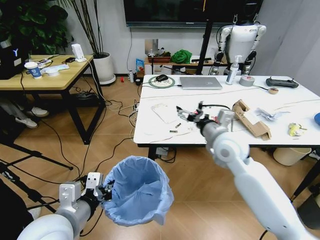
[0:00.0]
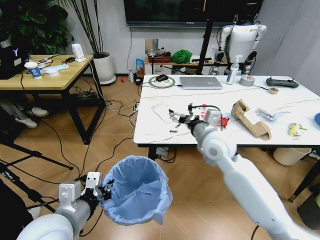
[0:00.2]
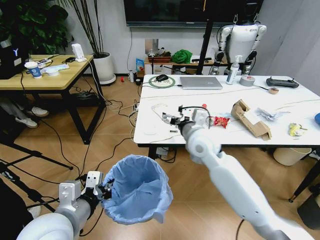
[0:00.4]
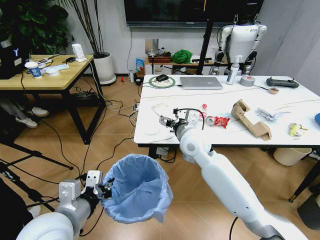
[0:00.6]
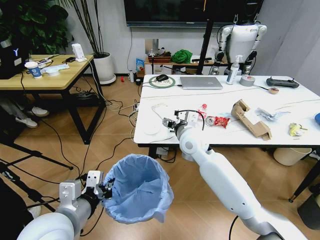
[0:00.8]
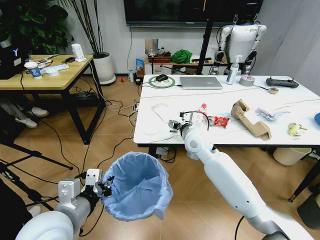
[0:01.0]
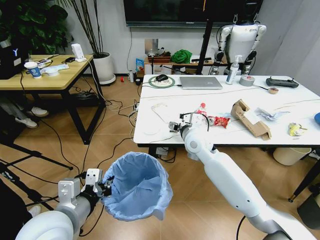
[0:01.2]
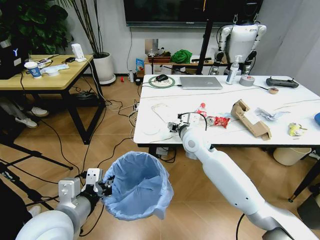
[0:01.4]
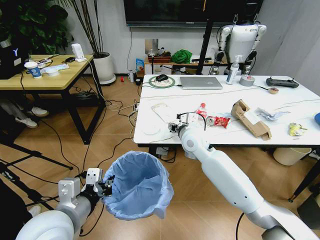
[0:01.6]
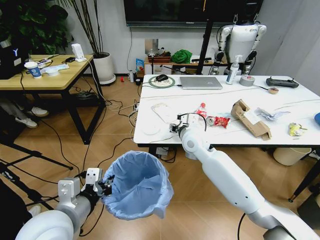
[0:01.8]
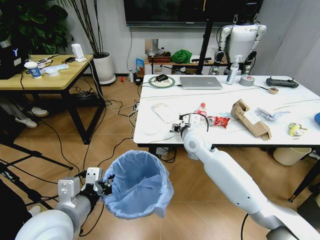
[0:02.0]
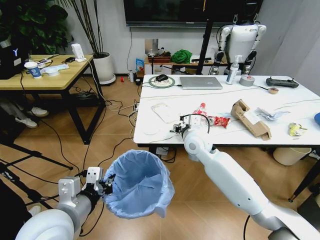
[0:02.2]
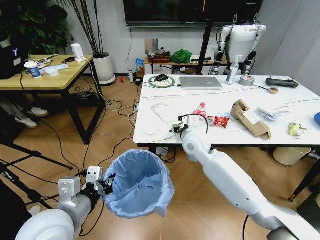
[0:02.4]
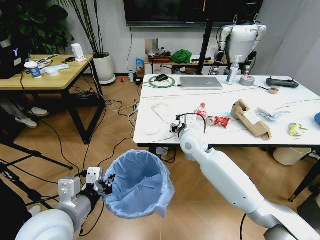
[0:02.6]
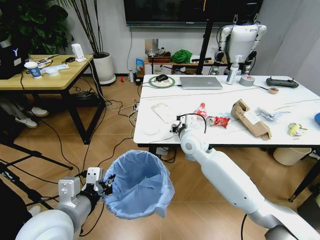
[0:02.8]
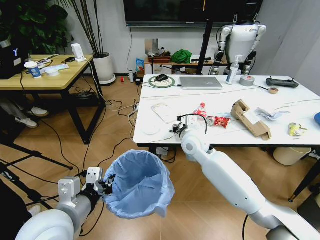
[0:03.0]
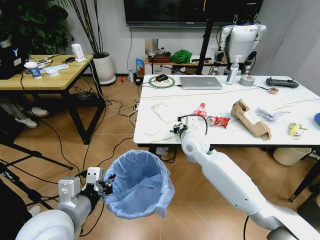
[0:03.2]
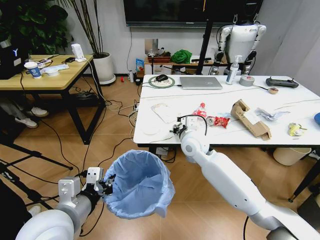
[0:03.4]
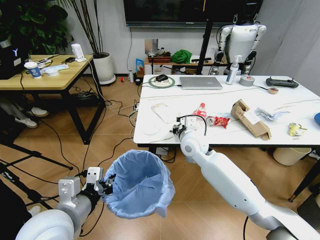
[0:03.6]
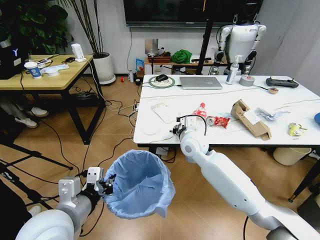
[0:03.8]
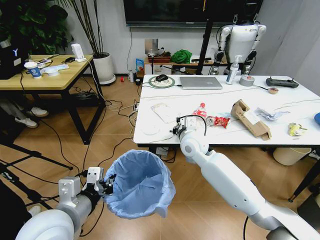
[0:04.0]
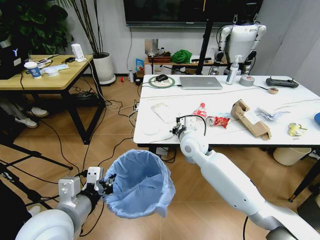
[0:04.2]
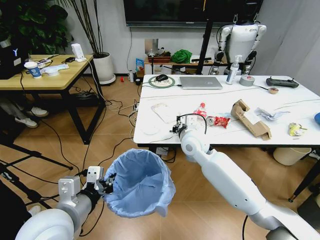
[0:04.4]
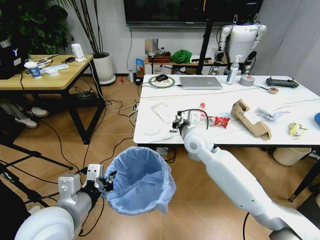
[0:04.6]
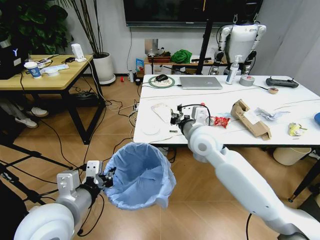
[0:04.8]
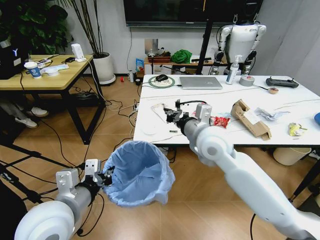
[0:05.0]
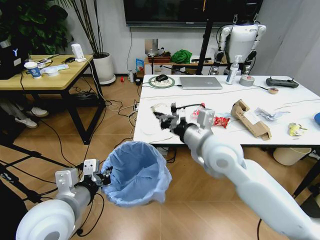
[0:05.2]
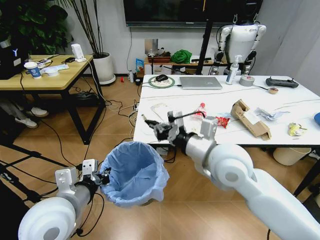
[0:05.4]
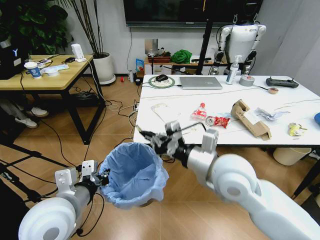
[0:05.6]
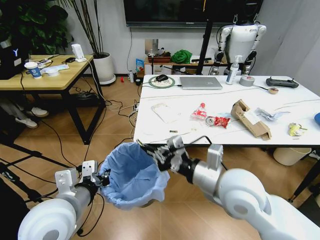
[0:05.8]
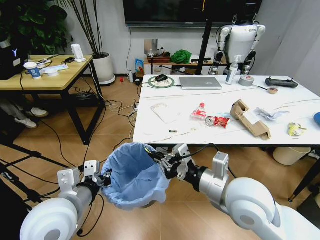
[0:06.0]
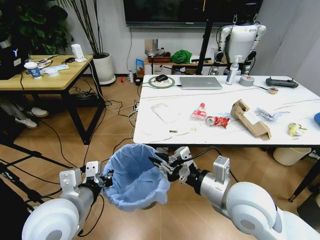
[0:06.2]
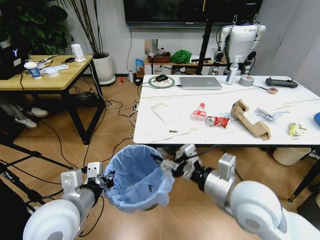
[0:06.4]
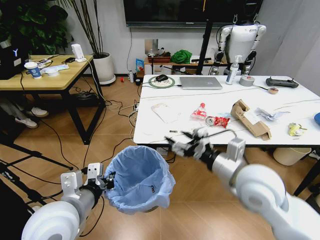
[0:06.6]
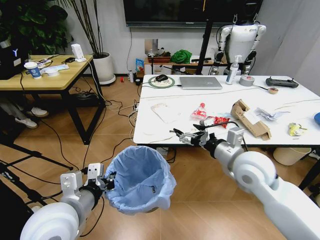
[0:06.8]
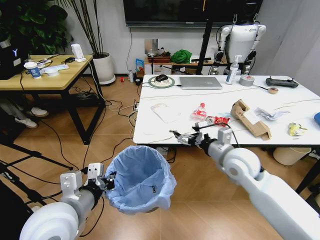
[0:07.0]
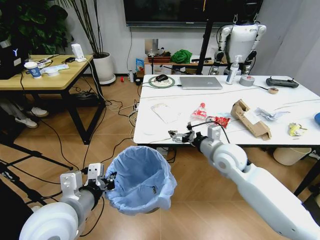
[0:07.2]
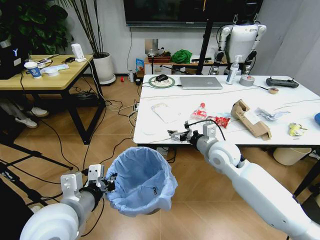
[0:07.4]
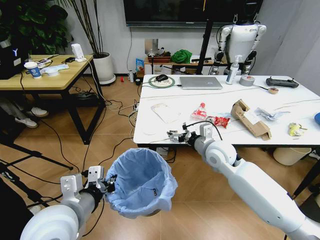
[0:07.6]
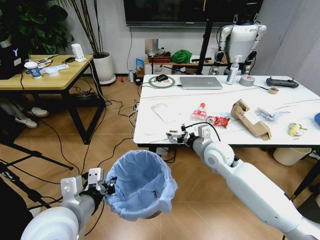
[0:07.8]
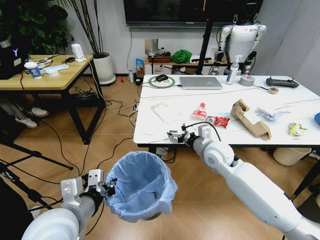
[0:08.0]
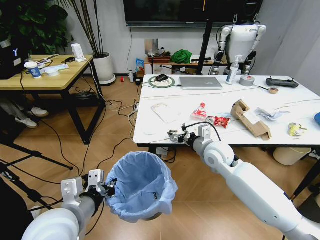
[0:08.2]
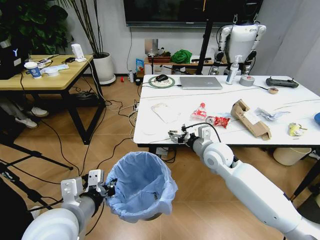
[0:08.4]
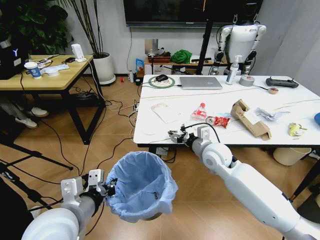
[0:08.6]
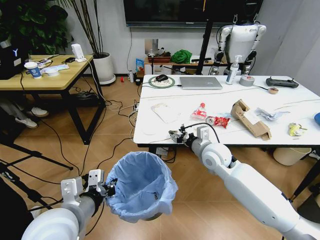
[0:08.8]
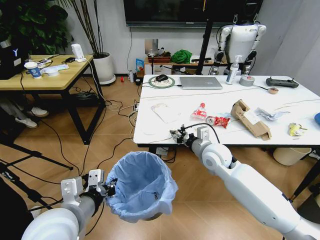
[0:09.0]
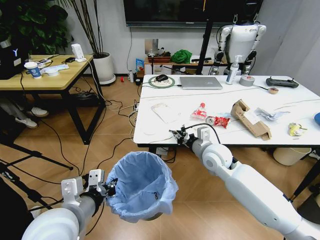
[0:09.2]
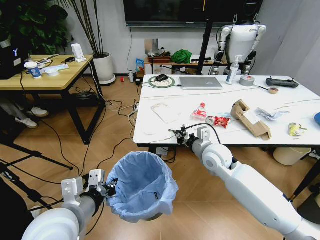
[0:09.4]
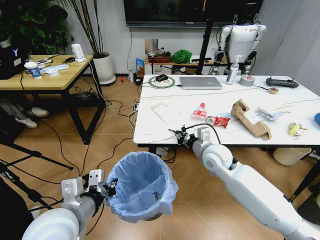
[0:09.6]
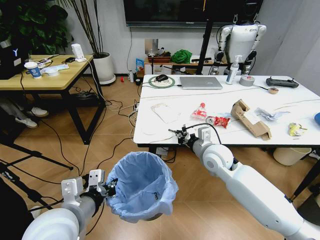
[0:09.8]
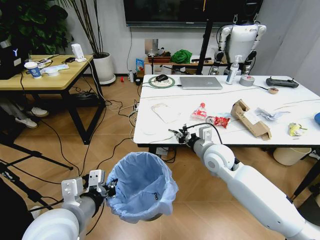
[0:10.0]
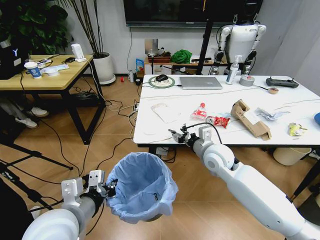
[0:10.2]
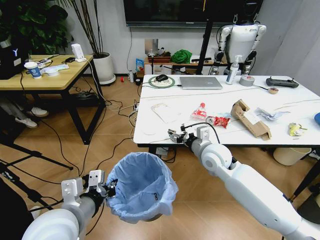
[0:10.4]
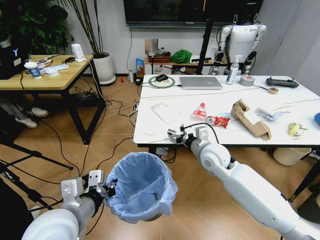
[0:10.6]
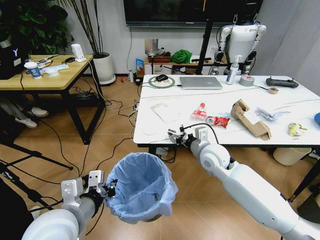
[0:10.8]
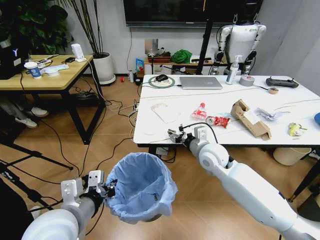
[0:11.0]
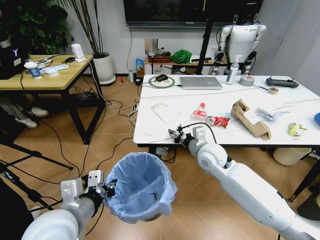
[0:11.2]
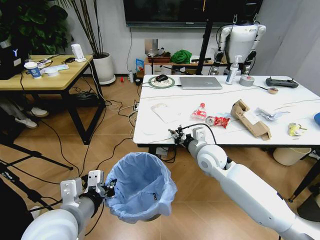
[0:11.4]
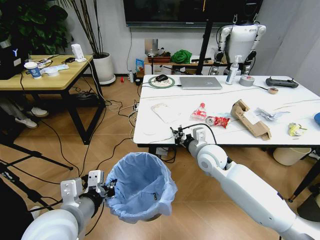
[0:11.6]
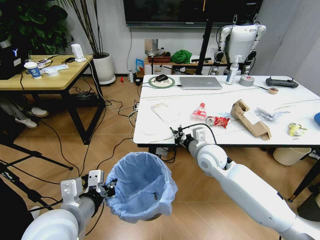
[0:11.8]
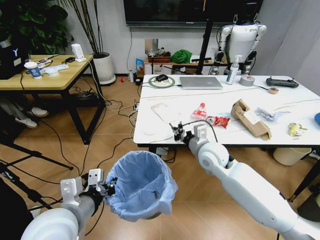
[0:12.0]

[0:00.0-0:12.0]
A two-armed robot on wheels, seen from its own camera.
Task of the whole recording: Pick up the trash bin and place the trash from the table into it.
0:00.0 to 0:01.6: The right gripper travels to the left and forward by some 10 cm, and closes up.
0:01.6 to 0:03.0: The grippers move only a little.
0:03.0 to 0:04.4: The right gripper closes up.
0:04.4 to 0:06.0: The right gripper travels backward by some 20 cm.
0:06.0 to 0:07.6: The right gripper travels forward by roughly 20 cm, and opens up.
0:07.6 to 0:09.0: The right gripper closes.
0:09.0 to 0:10.4: The right gripper opens its fingers.
0:10.4 to 0:12.0: The right gripper closes up.

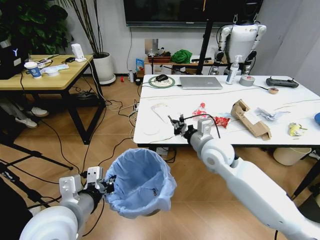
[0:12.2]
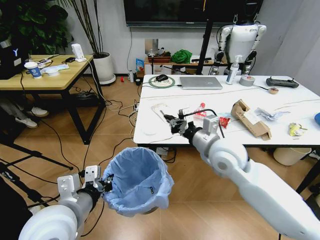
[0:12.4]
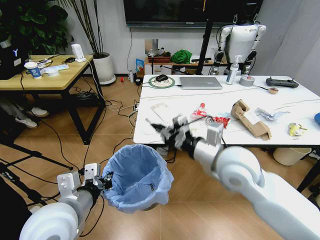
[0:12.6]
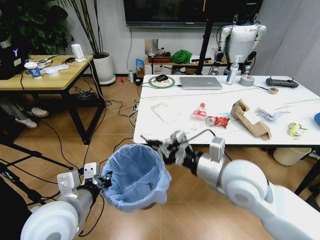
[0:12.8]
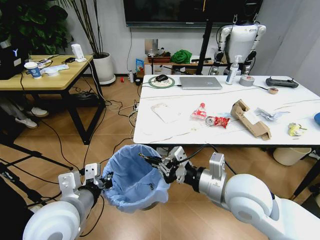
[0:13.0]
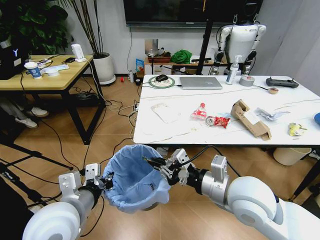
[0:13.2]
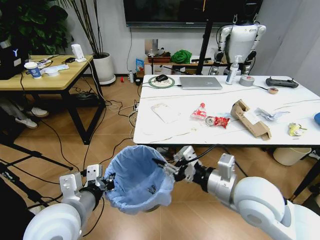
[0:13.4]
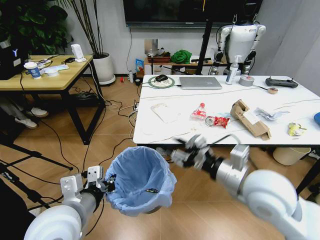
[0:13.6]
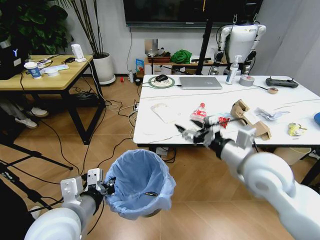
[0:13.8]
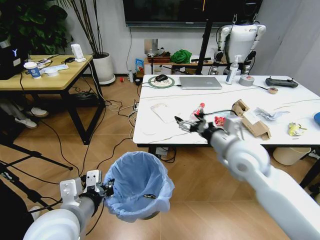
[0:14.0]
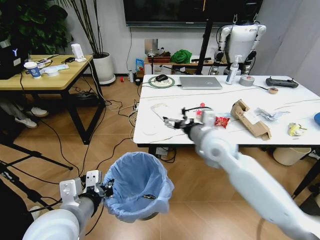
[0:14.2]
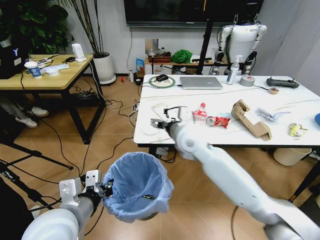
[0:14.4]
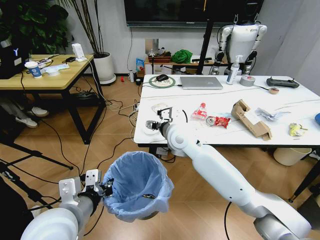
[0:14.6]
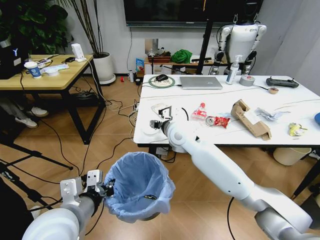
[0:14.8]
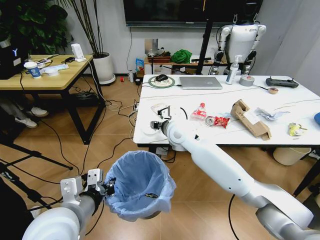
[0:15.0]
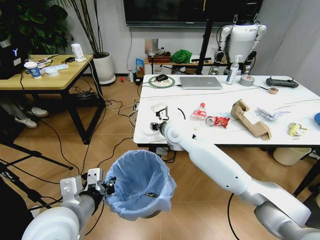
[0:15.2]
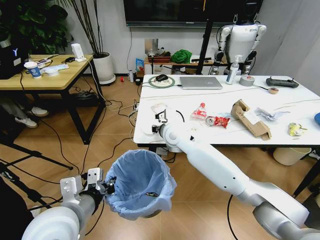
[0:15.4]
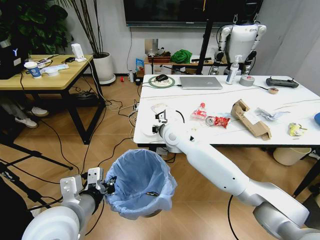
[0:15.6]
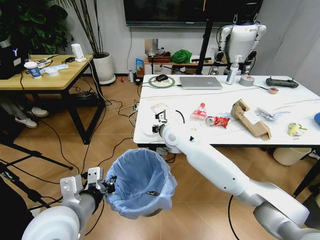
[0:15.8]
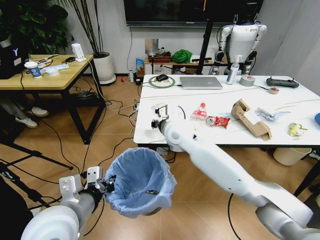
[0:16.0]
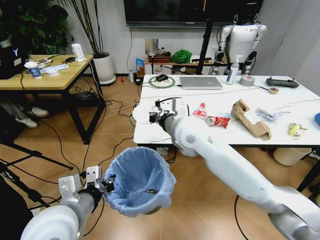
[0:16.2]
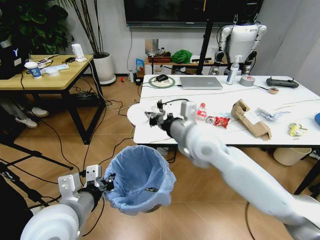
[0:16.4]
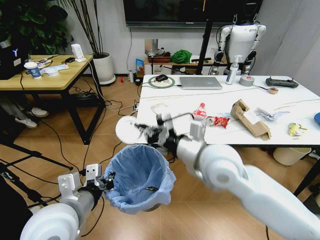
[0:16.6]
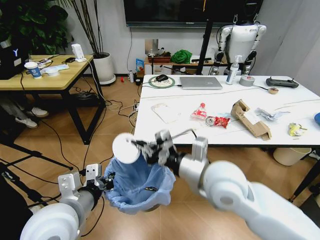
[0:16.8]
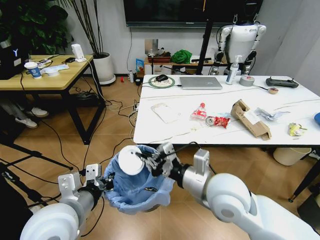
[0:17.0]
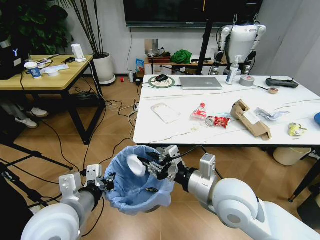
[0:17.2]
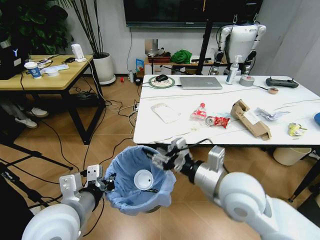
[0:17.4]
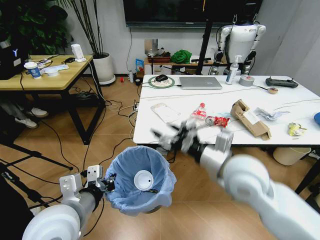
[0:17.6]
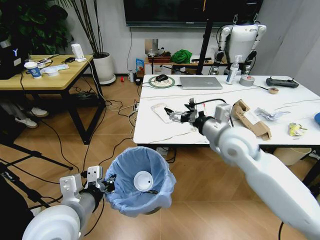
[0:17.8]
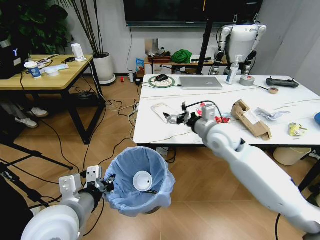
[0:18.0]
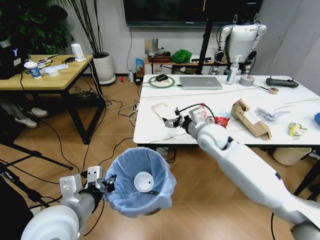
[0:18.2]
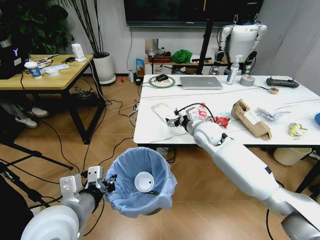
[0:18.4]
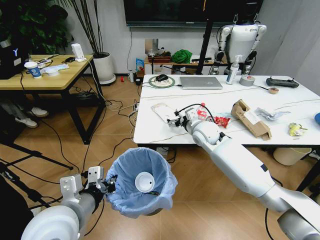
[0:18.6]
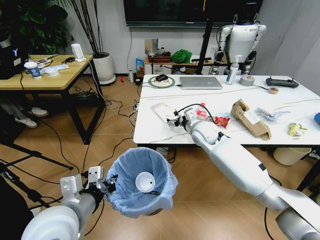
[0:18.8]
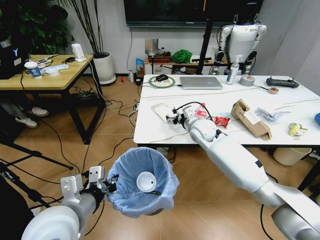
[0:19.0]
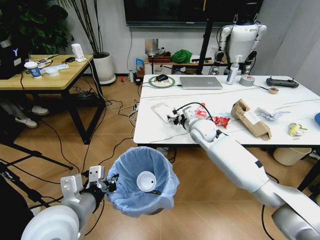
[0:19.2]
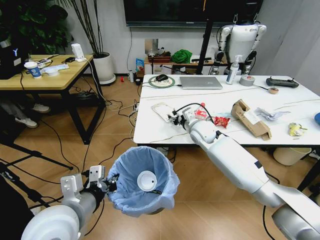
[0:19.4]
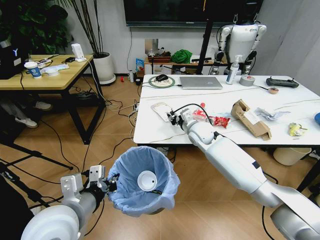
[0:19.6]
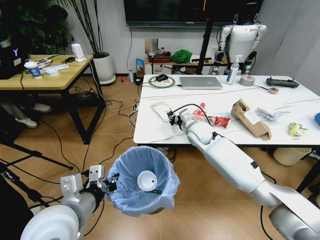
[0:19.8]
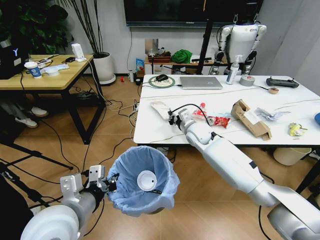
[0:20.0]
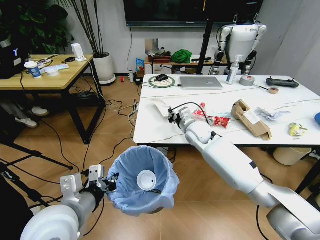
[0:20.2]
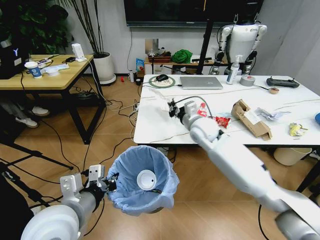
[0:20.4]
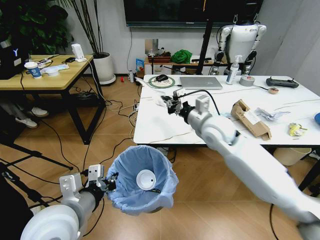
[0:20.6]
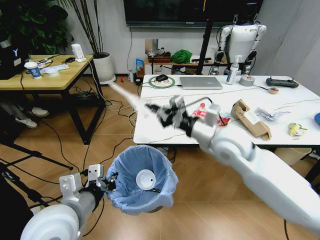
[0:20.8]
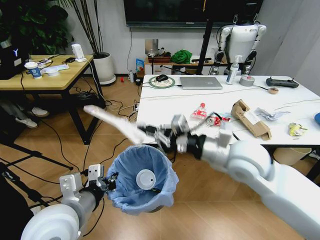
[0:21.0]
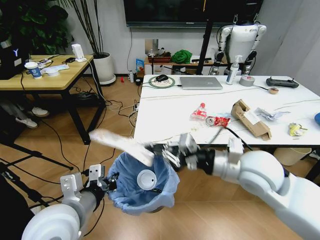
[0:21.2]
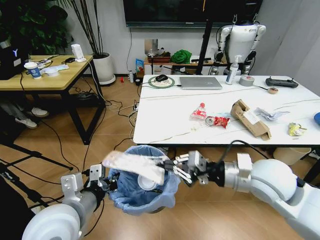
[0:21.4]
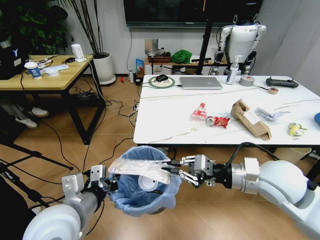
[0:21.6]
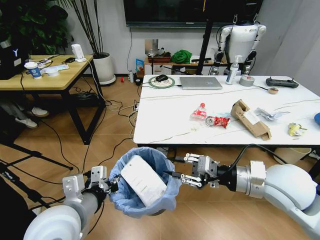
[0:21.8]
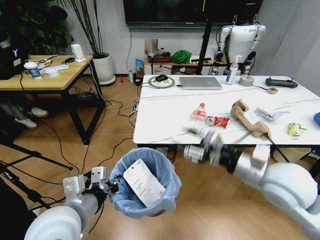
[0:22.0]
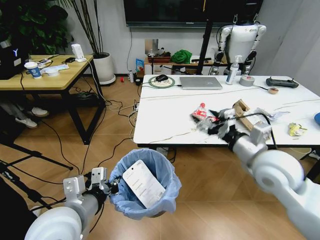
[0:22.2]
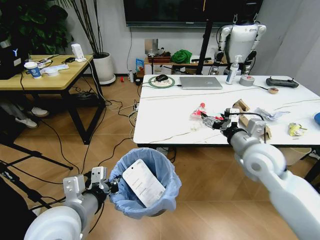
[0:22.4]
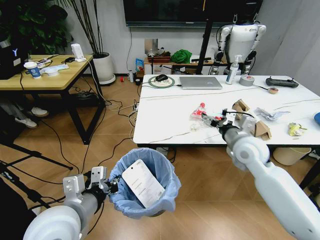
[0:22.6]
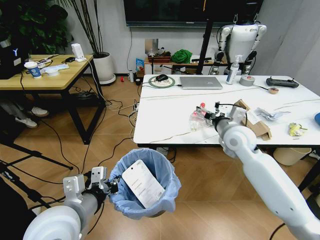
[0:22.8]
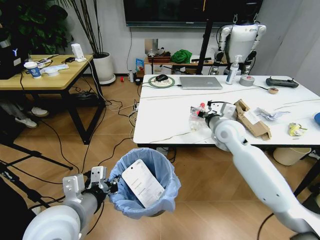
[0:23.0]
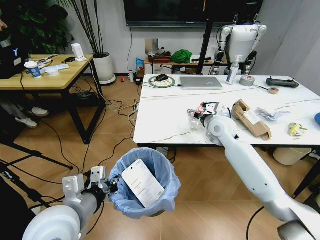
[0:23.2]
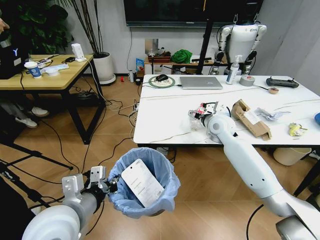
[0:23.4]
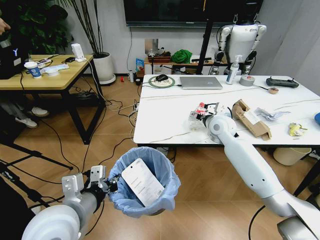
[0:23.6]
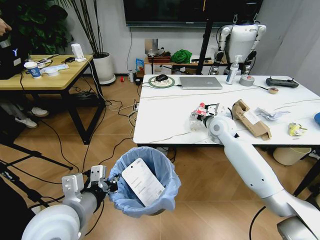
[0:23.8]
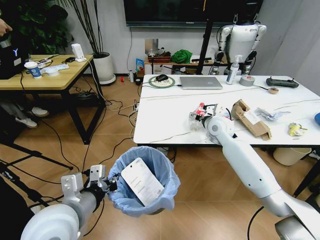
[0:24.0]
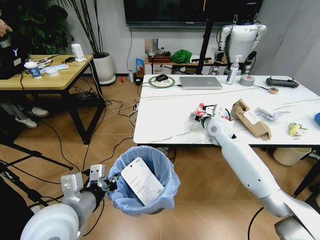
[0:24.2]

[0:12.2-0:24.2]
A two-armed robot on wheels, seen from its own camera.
Task of the whole recording: Pick up the trash bin and place the trash from the table into it.
0:12.2 to 0:13.8: The right gripper travels backward and to the right by roughly 10 cm, and opens up.
0:13.8 to 0:15.2: The right gripper is displaced to the left and forward by roughly 25 cm.
0:15.2 to 0:16.6: The right gripper moves backward and to the right, roughly 15 cm, and closes.
0:16.6 to 0:18.2: The right gripper heads forward and downward, covering some 15 cm, and opens up.
0:18.2 to 0:19.8: The right gripper shifts some 5 cm forward, and closes its fingers.
0:19.8 to 0:21.2: The right gripper heads backward and upward, covering some 25 cm.
0:21.2 to 0:22.6: The right gripper goes approximately 10 cm forward, and opens up.
0:22.6 to 0:24.2: The right gripper heads forward, covering some 10 cm.
